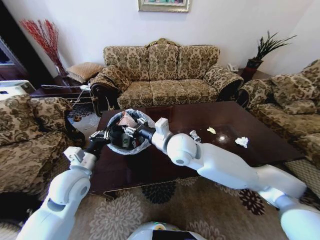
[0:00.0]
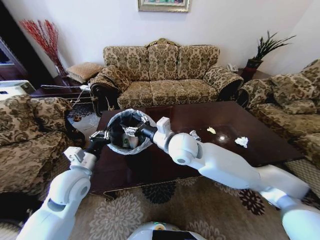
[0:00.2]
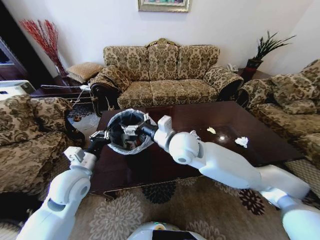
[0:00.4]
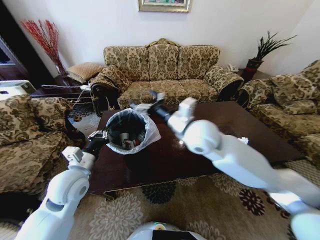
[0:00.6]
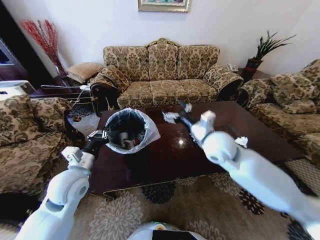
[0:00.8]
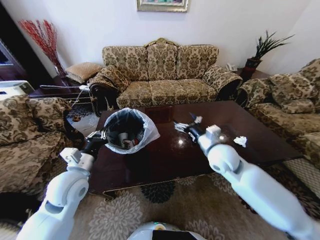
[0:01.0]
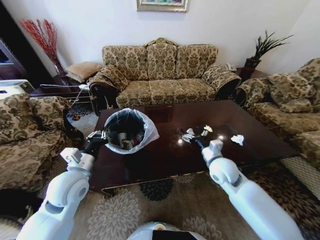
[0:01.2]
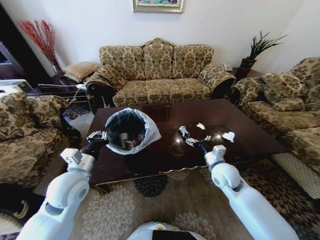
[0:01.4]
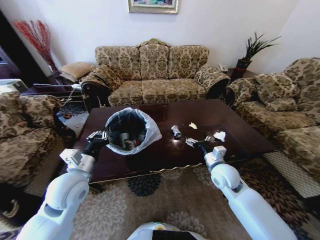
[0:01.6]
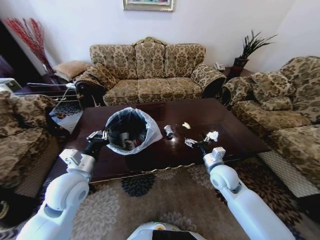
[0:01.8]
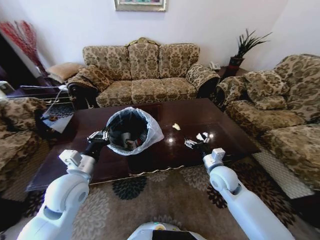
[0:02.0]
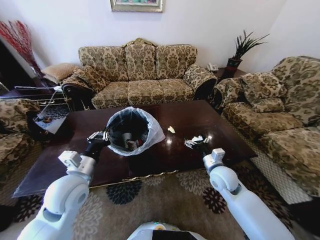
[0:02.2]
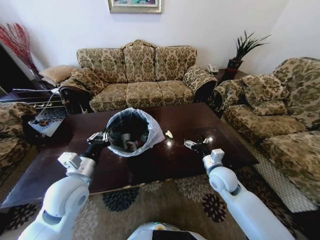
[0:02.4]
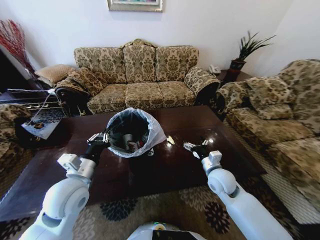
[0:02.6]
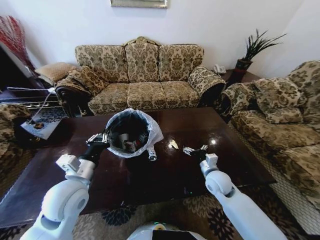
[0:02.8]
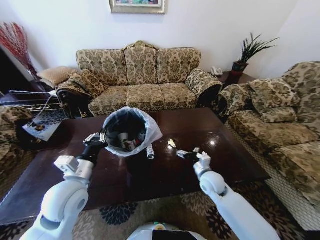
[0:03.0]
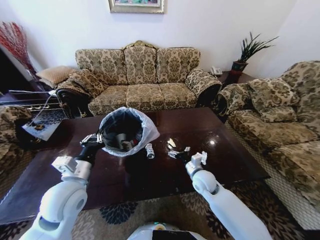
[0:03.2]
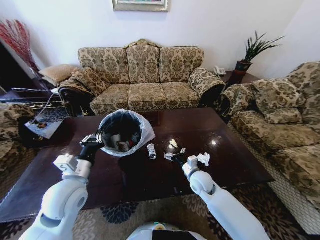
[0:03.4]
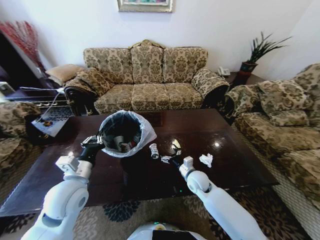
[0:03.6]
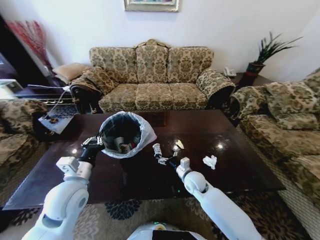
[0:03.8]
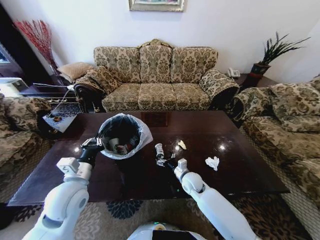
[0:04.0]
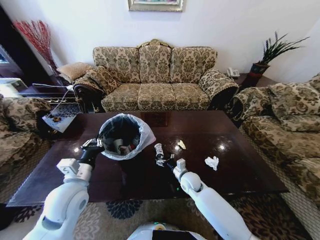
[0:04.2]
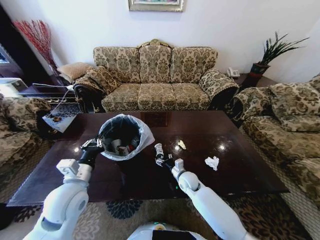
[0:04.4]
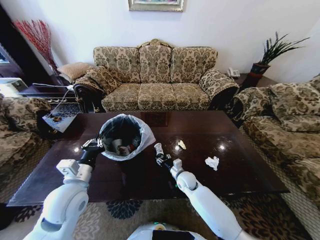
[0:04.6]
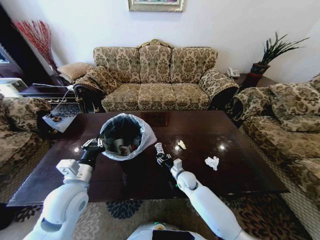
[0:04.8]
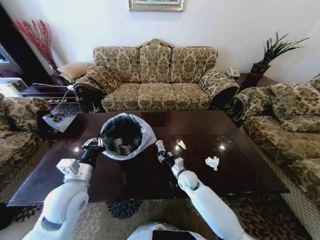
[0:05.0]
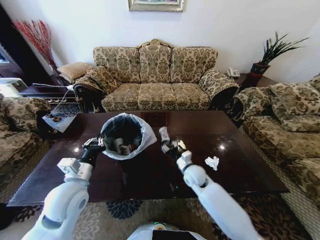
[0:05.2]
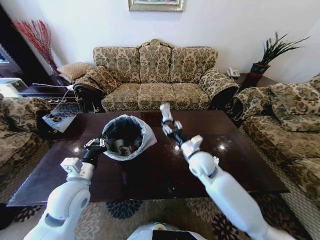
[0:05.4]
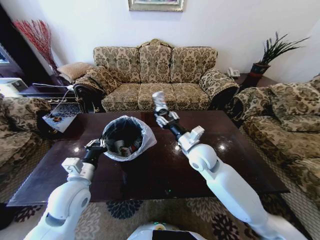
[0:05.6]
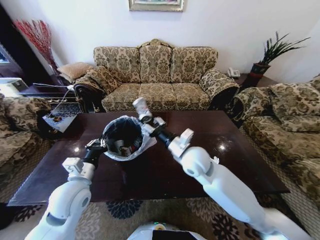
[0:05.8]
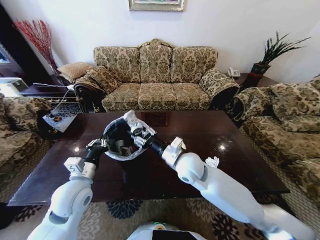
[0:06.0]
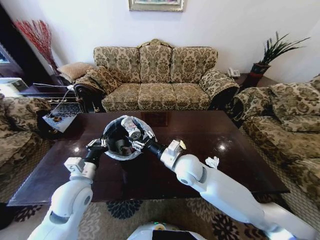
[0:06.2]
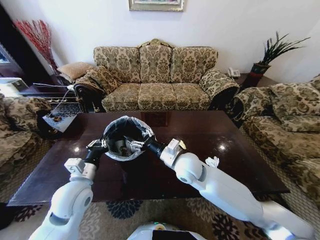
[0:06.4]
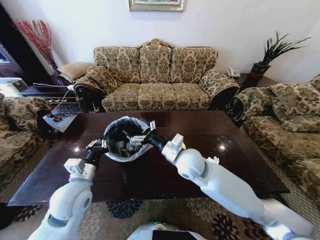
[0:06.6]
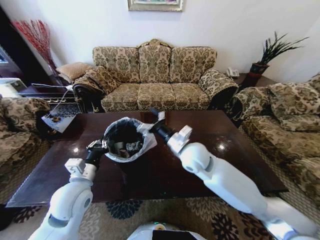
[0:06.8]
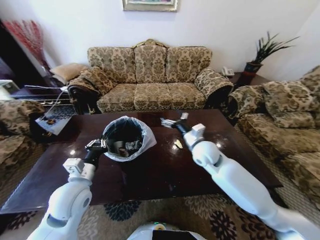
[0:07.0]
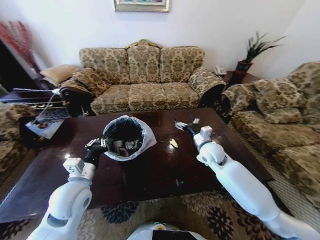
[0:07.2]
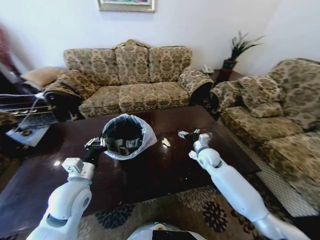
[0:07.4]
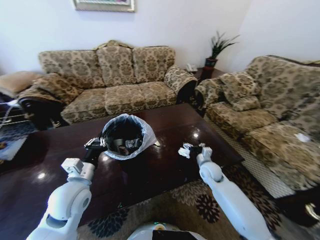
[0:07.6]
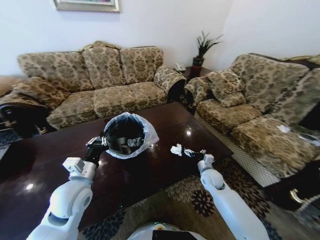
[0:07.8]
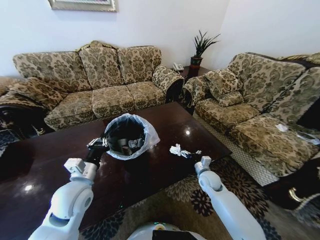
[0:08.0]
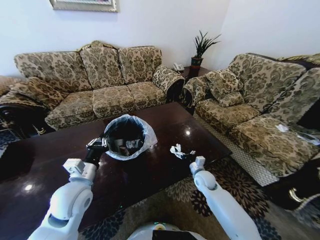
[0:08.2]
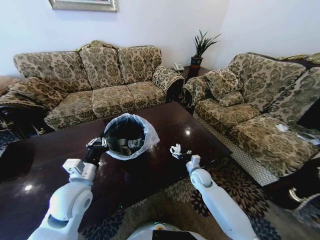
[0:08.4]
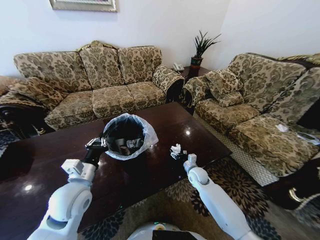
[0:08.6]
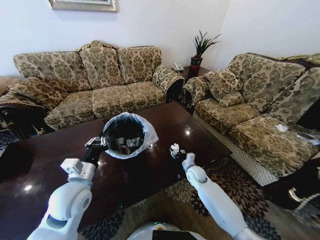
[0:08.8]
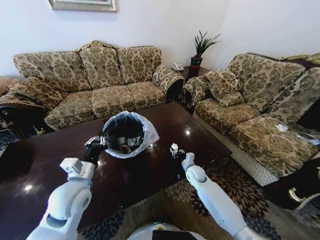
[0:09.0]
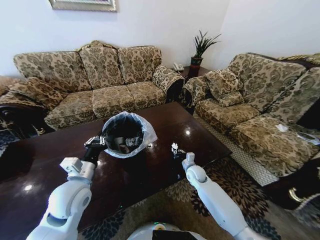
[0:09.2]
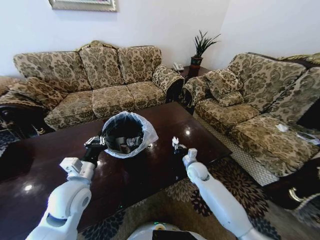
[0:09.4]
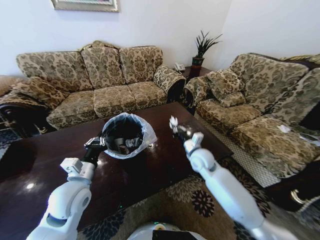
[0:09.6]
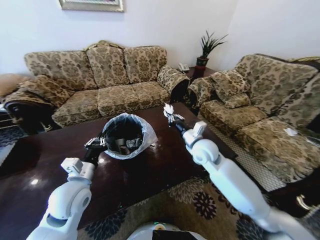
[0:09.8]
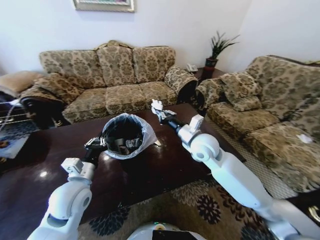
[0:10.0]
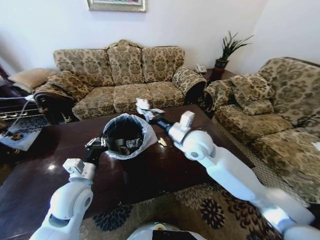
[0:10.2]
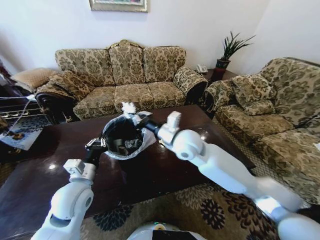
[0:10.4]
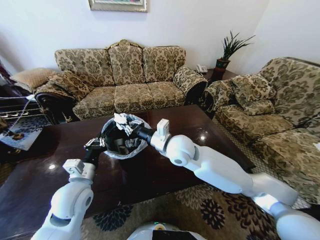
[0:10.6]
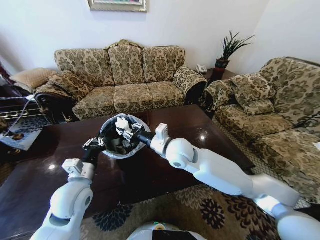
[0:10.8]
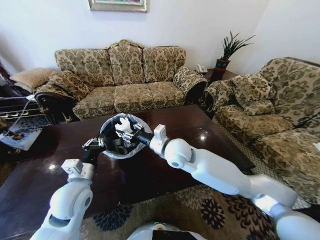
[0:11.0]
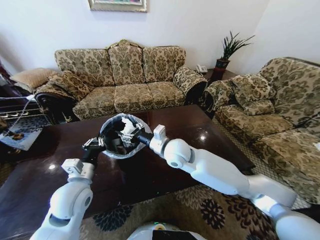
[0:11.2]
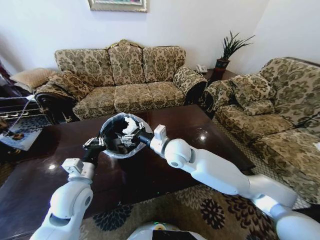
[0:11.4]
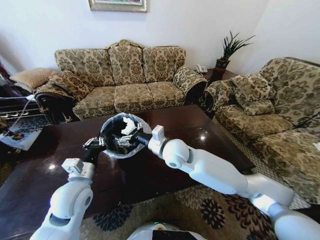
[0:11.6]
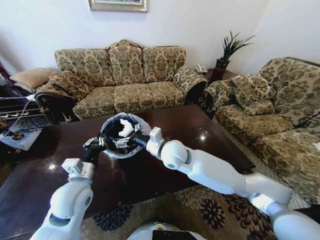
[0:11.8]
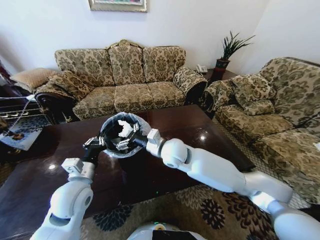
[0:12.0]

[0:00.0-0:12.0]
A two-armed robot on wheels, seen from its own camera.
Task of the whole recording: Move to the front of the table and place the trash on the table into the trash bin.
0:00.0 to 0:01.6: The right gripper shifts approximately 25 cm to the right and downward, and opens up.
0:01.6 to 0:03.0: The right gripper moves downward, some 5 cm.
0:03.0 to 0:04.4: The right gripper moves to the left and downward, approximately 10 cm.
0:04.4 to 0:06.0: The right gripper is displaced upward by roughly 20 cm.
0:06.0 to 0:07.6: The right gripper goes roughly 20 cm to the right, downward and forward, and opens its fingers.
0:07.6 to 0:09.0: The right gripper heads downward, covering about 10 cm, and closes up.
0:09.0 to 0:10.4: The right gripper is displaced upward by about 30 cm, and closes its fingers.
0:10.4 to 0:12.0: The right gripper ends up some 5 cm from where it was, and opens its fingers.

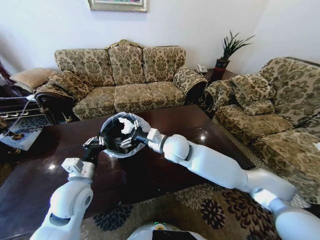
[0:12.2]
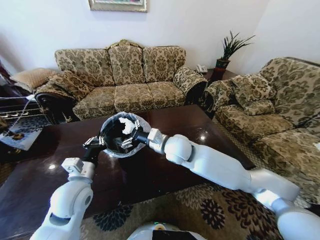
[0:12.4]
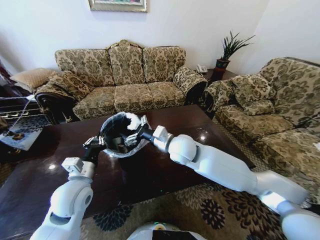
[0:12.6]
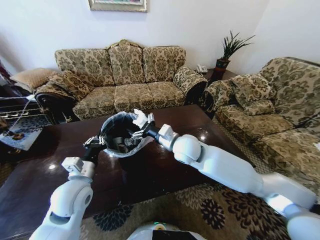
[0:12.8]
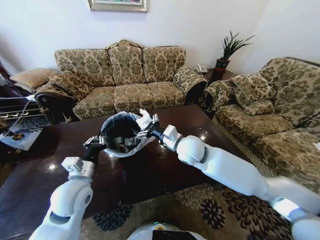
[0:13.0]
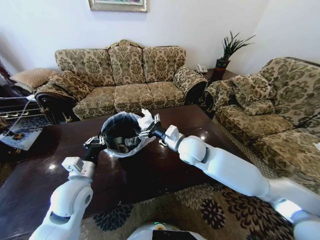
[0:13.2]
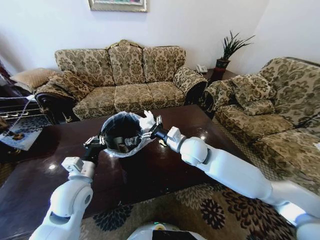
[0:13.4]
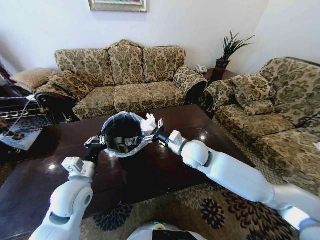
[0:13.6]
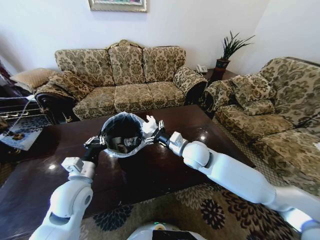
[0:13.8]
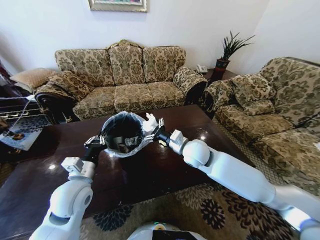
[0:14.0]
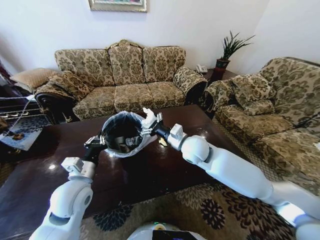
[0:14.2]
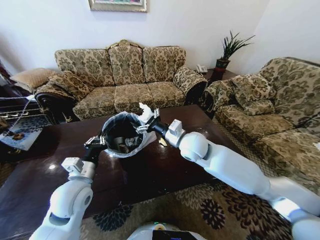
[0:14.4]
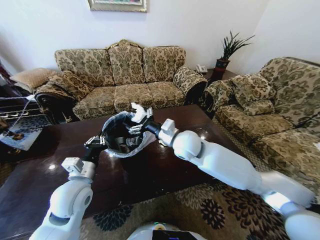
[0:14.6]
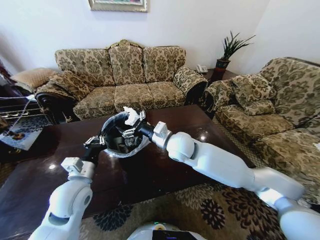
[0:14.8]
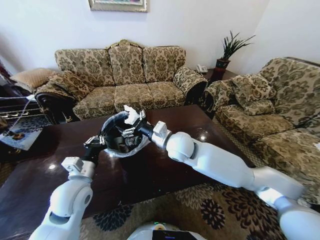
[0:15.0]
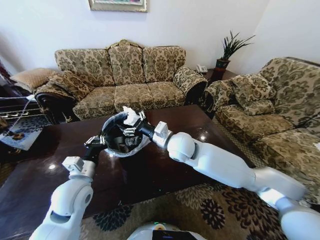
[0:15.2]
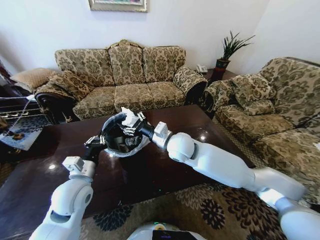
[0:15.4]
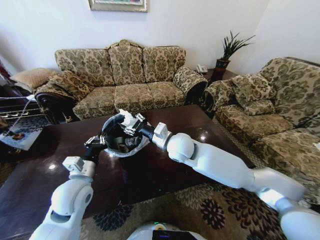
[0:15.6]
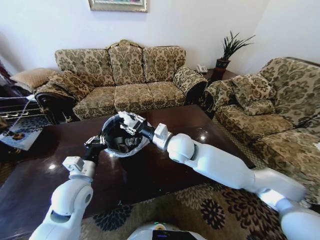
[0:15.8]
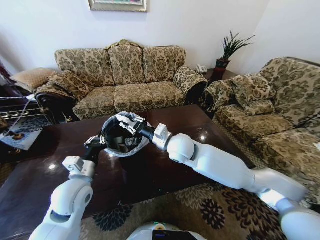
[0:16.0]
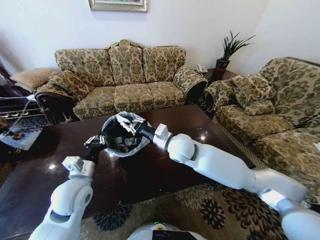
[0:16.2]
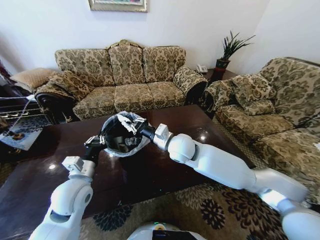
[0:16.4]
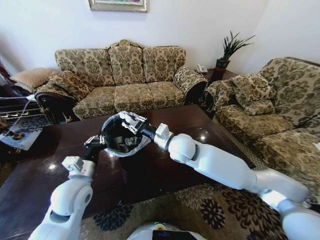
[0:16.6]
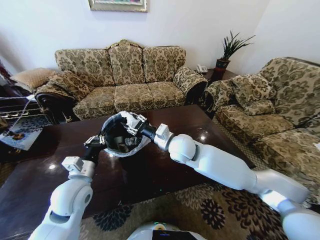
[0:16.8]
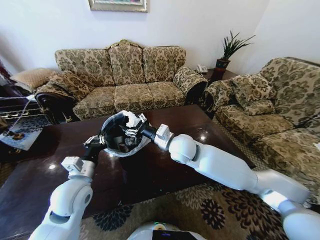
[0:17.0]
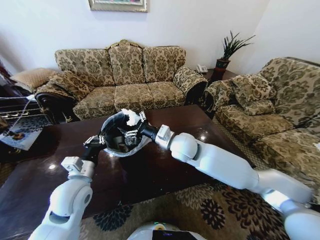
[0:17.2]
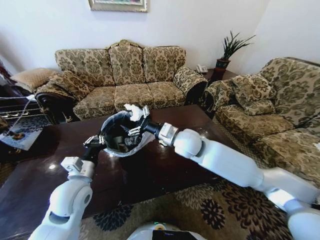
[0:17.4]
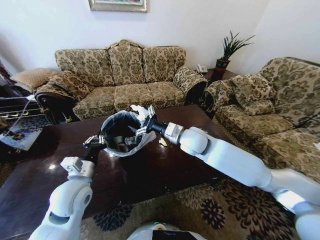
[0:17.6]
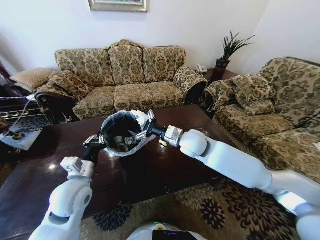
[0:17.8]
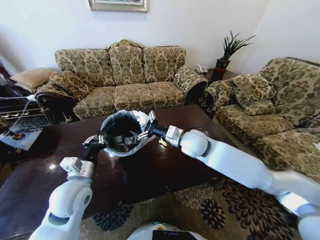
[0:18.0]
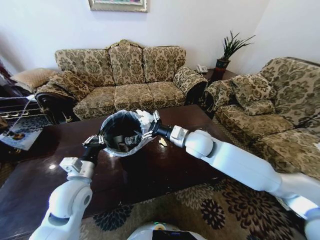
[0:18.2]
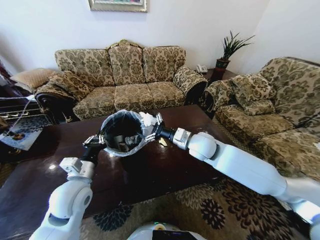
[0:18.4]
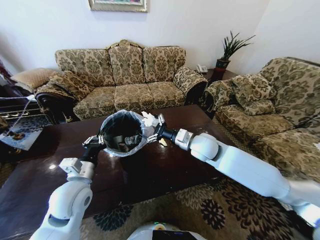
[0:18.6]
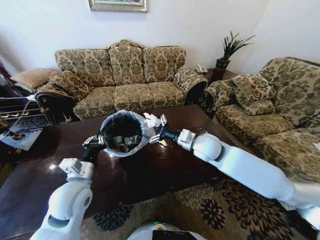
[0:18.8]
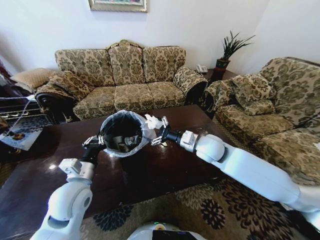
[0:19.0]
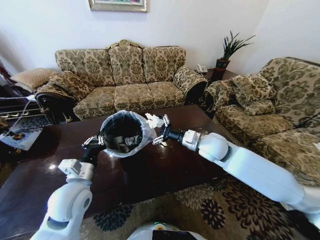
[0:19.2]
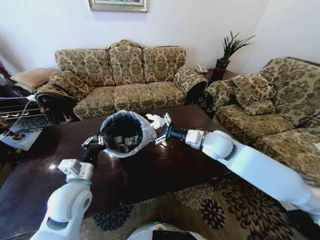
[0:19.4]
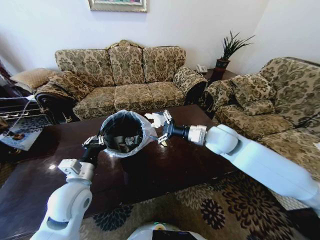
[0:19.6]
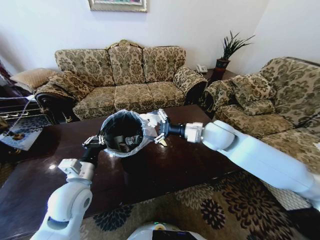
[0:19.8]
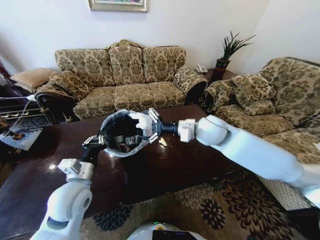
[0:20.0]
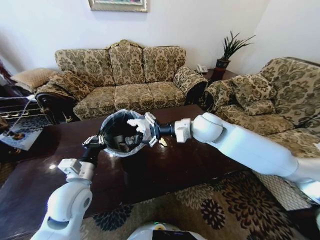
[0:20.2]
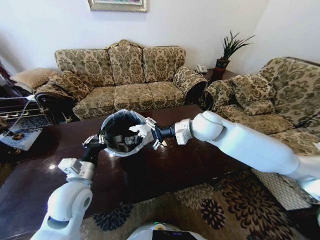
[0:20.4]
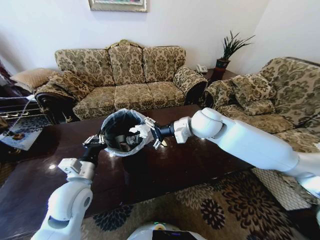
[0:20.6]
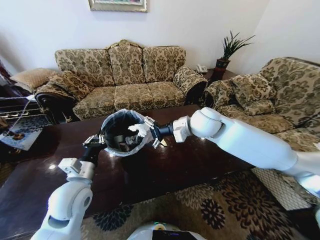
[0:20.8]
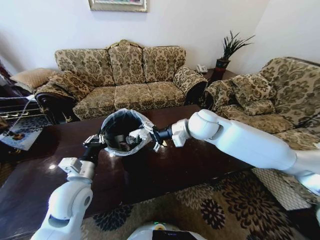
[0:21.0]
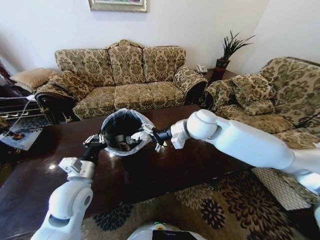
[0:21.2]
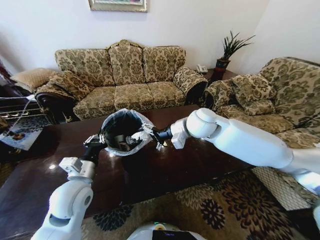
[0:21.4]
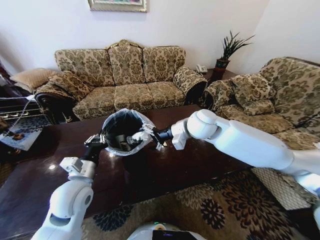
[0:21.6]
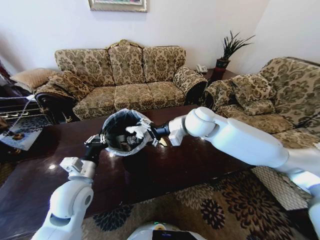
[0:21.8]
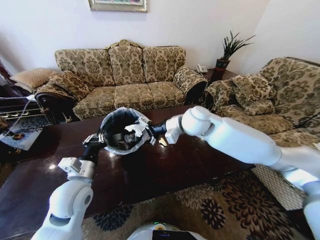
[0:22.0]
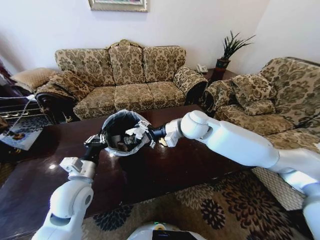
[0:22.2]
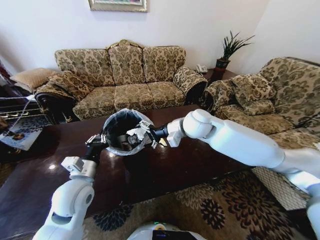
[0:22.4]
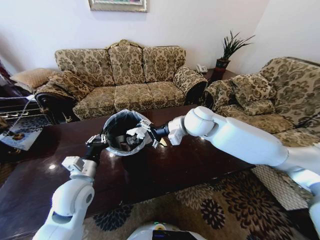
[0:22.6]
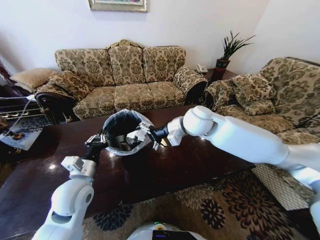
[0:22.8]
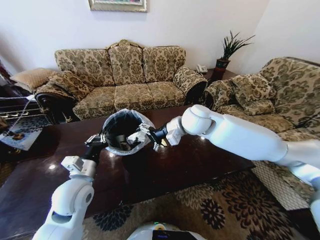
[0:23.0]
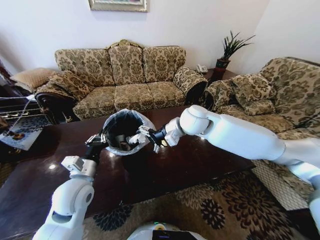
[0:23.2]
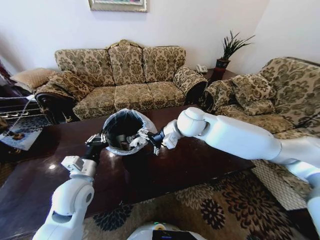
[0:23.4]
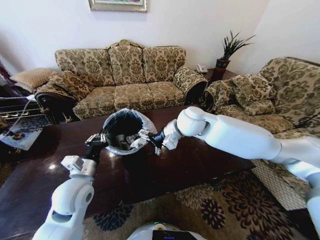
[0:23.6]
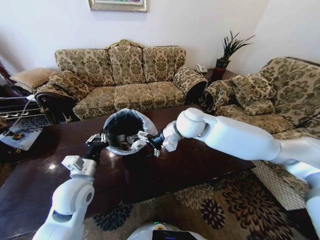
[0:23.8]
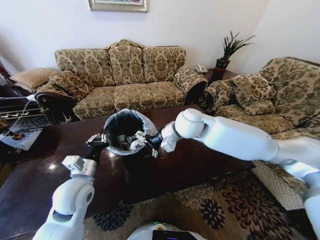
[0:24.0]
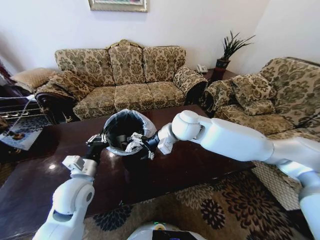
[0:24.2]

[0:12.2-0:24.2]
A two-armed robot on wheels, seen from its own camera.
Task of the whole recording: Move to the front of the table and place the trash on the table into the trash bin.
0:12.2 to 0:13.8: The right gripper is displaced to the right by approximately 10 cm.
0:13.8 to 0:15.2: The right gripper moves to the left, about 5 cm.
0:15.2 to 0:16.6: The right gripper closes up.
0:16.6 to 0:18.2: The right gripper heads to the right, covering roughly 5 cm, and opens up.
0:18.2 to 0:19.8: The right gripper moves to the right, about 5 cm.
0:19.8 to 0:21.2: The right gripper goes approximately 5 cm to the left.
0:21.2 to 0:24.2: The grippers stay close to where they were, moving slightly.
